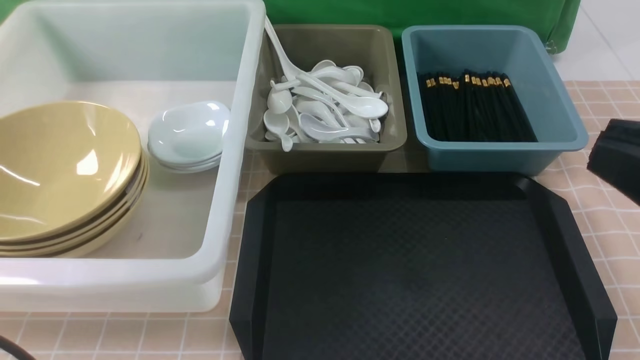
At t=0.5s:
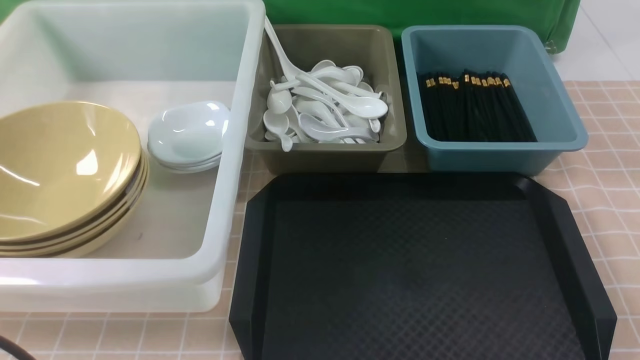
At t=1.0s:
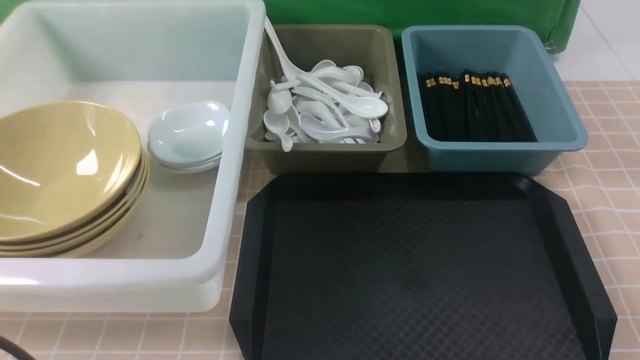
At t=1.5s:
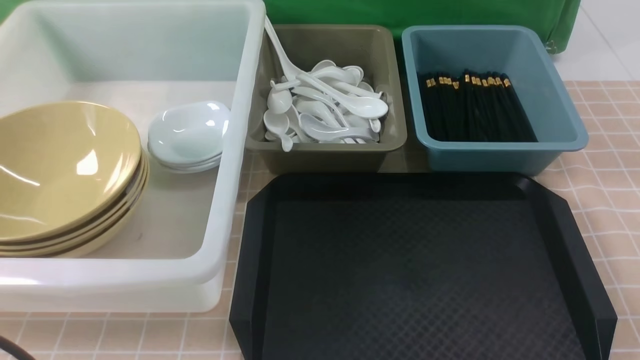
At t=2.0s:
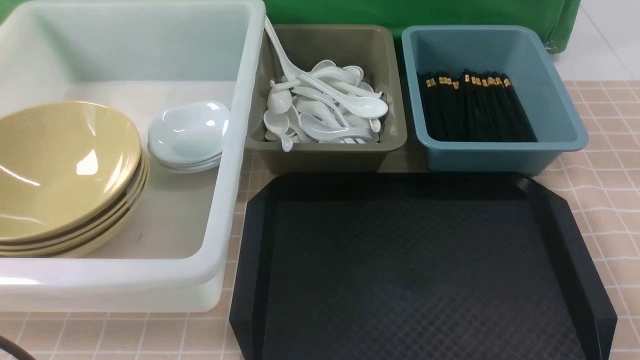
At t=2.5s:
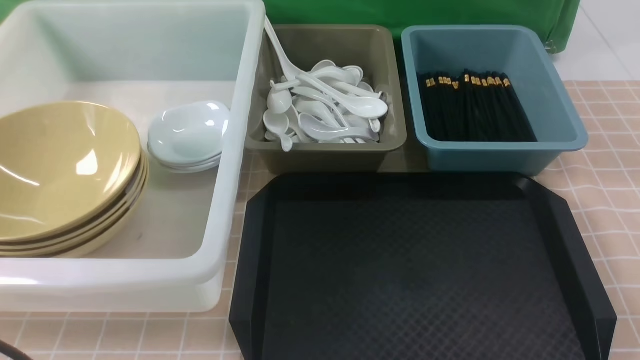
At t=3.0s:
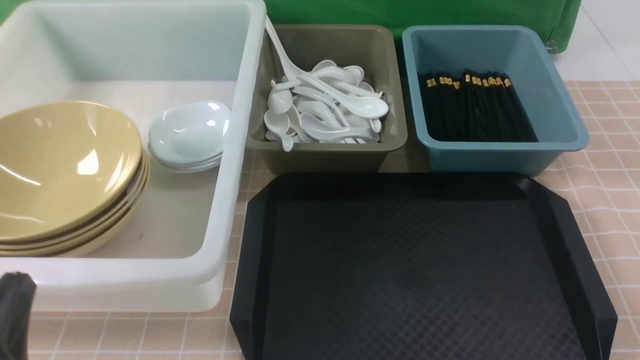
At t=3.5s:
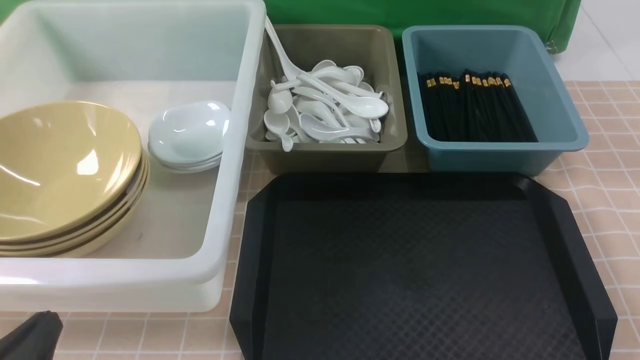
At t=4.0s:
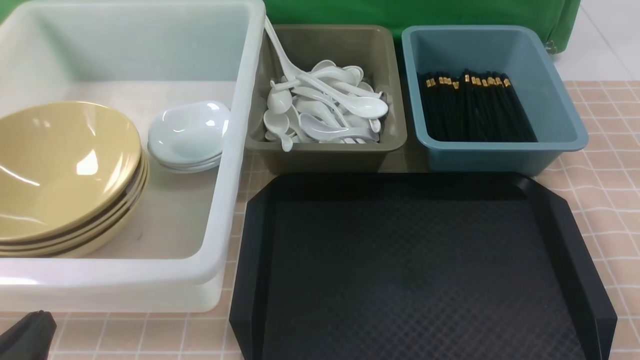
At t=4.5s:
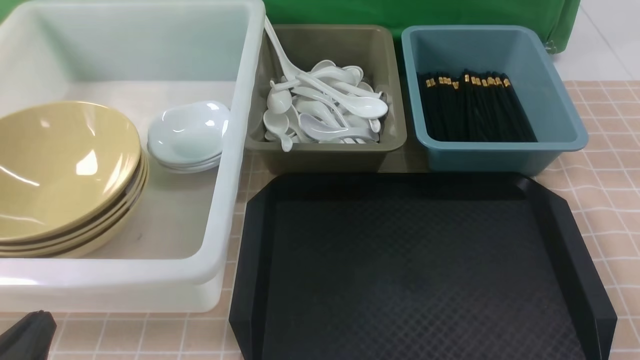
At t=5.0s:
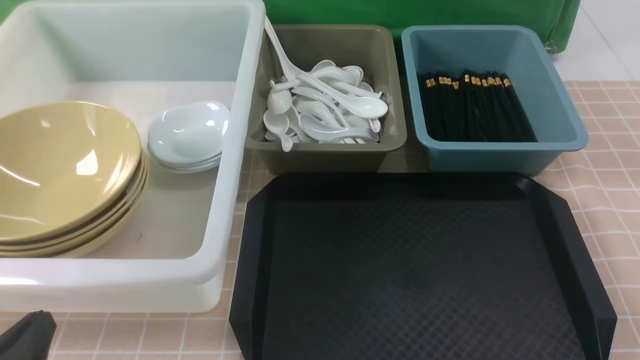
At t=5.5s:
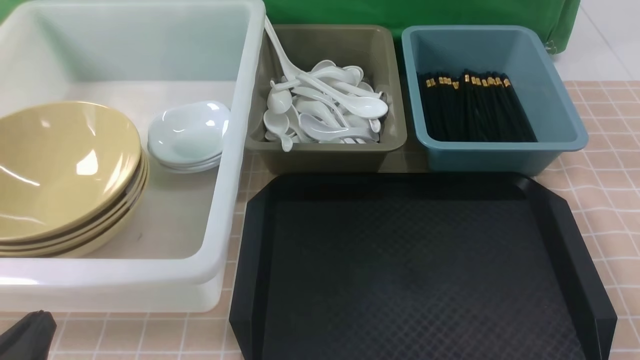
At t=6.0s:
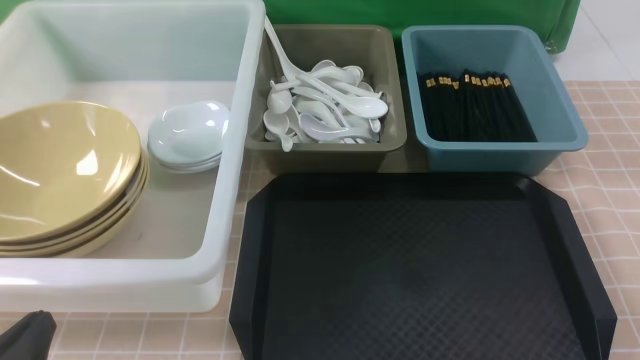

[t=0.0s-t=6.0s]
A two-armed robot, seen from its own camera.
Task of the whole recording: on brown table put chopsticks spoon bowls plates into blue grey white boxes.
t=0.0s to t=2.0s: The right gripper is displaced downward and to the right by about 20 cm.
t=2.0s to t=4.0s: The left gripper heads downward, covering approximately 15 cm.
t=4.0s to t=6.0s: Both grippers stay put.

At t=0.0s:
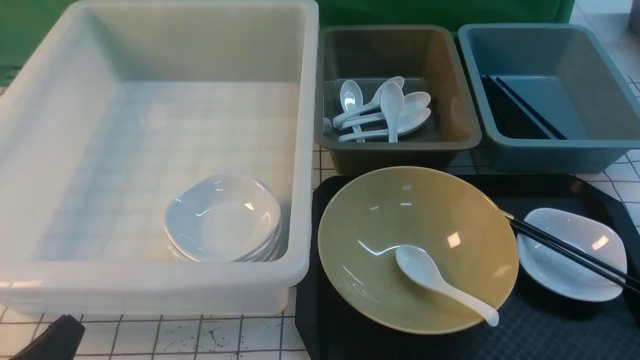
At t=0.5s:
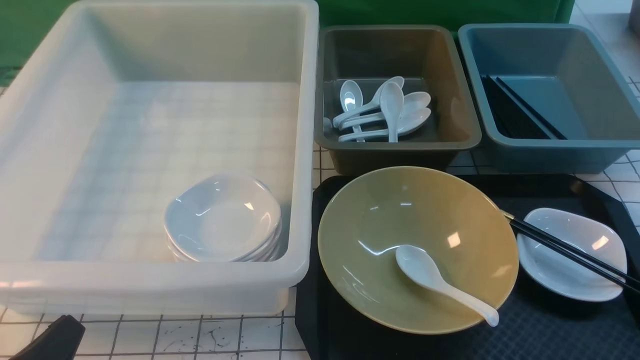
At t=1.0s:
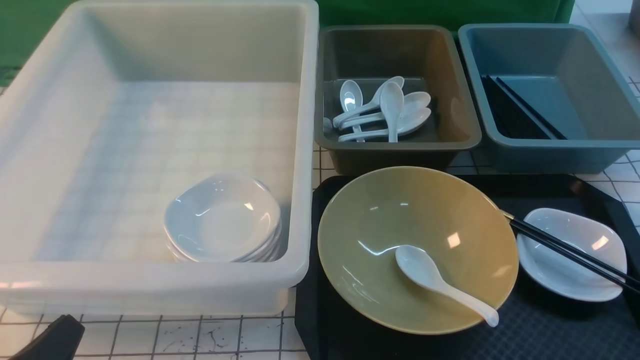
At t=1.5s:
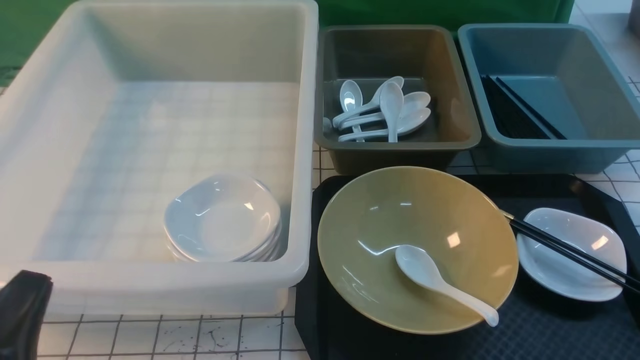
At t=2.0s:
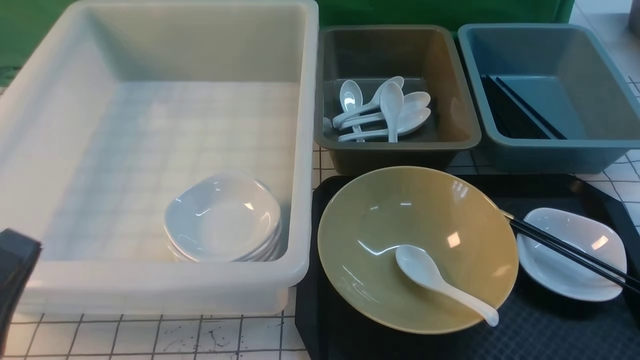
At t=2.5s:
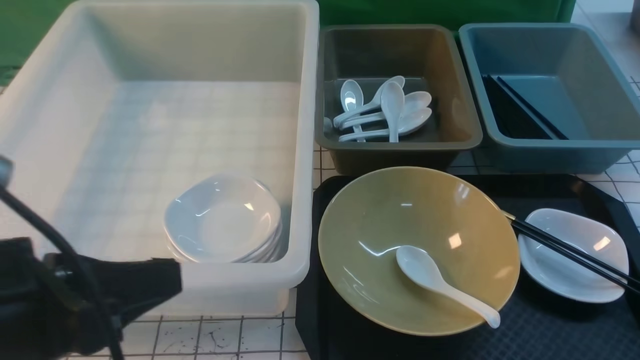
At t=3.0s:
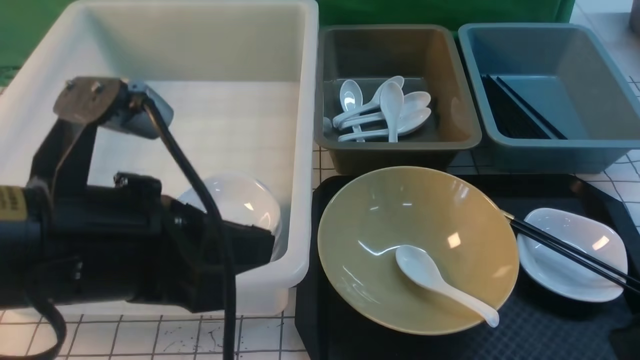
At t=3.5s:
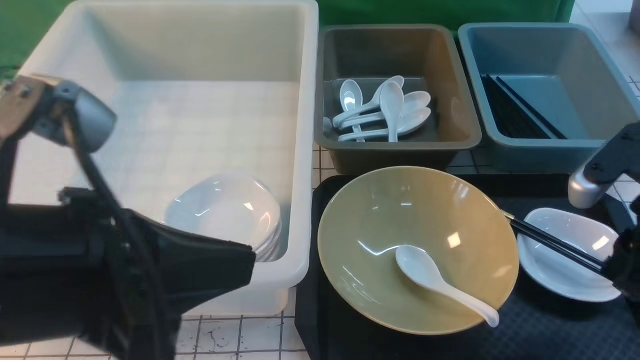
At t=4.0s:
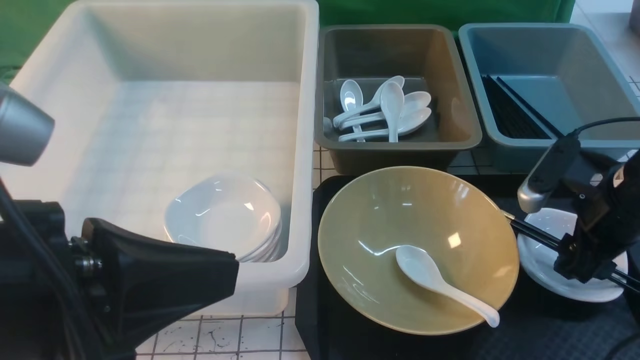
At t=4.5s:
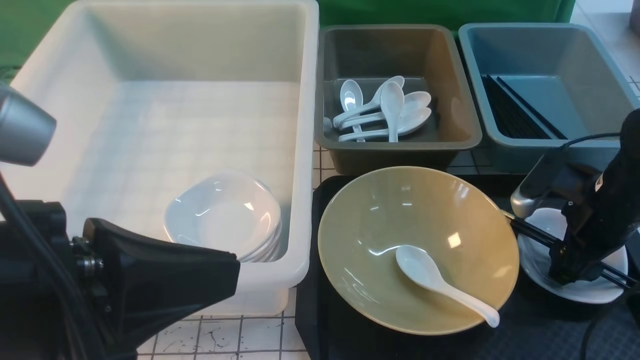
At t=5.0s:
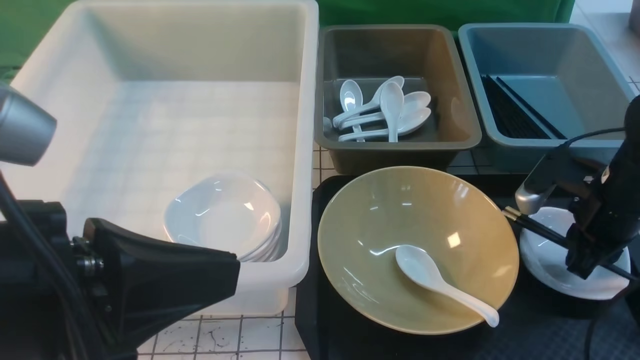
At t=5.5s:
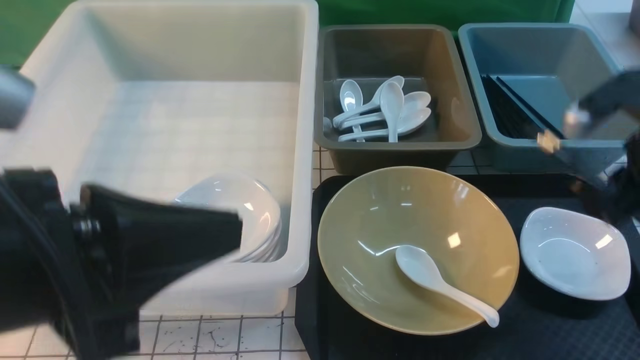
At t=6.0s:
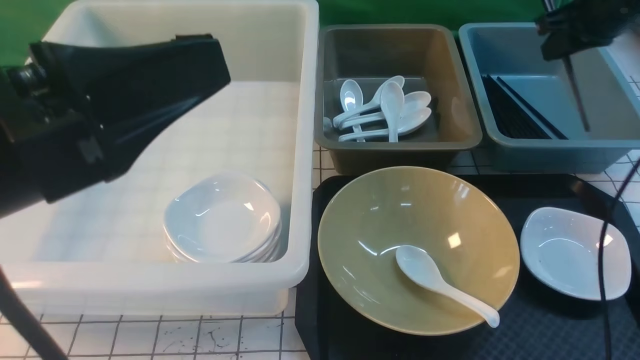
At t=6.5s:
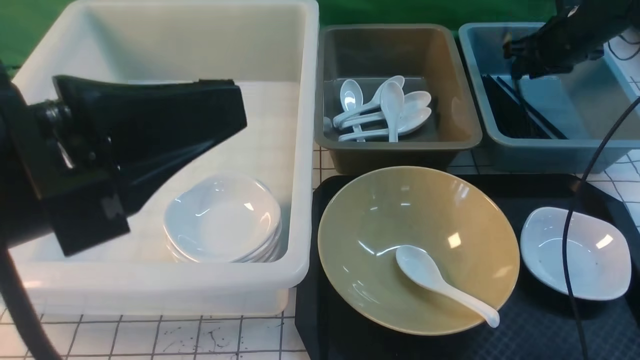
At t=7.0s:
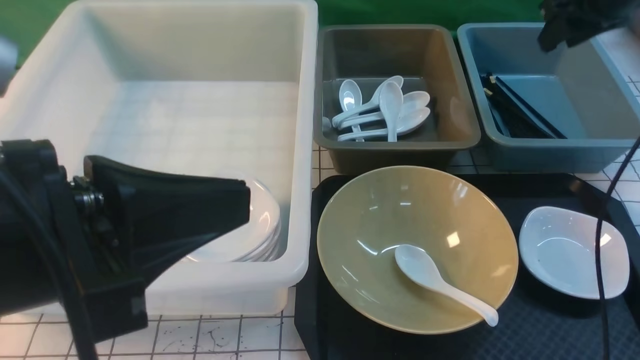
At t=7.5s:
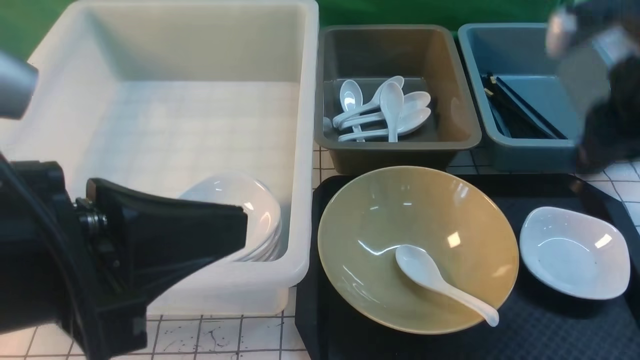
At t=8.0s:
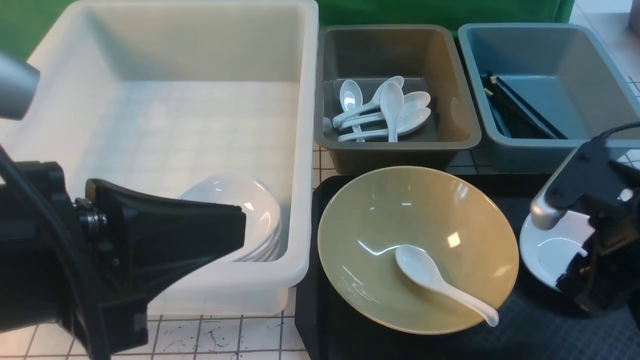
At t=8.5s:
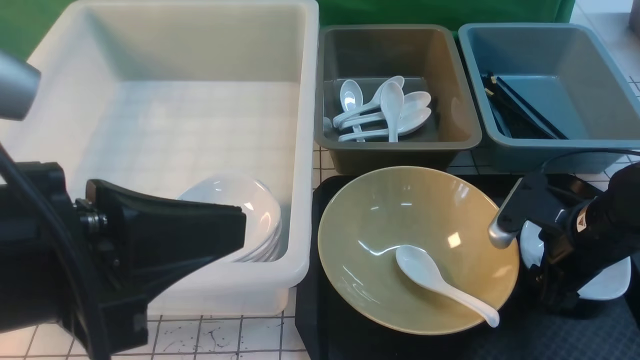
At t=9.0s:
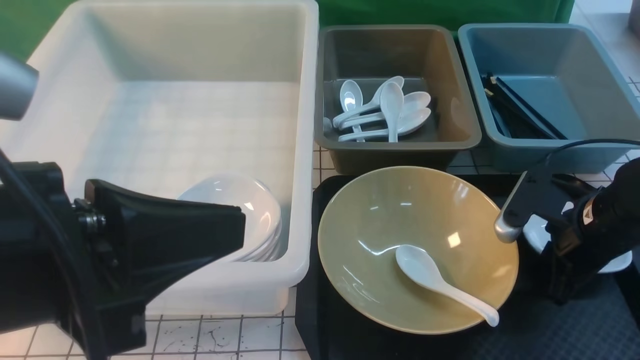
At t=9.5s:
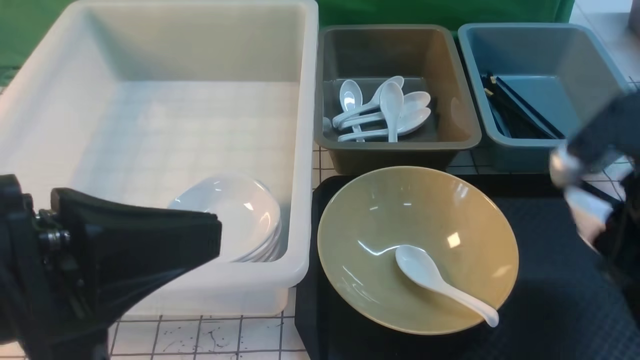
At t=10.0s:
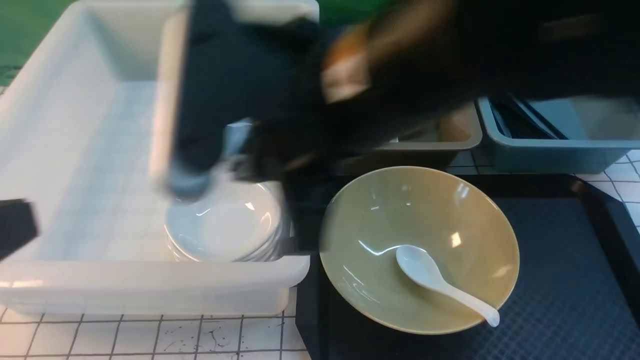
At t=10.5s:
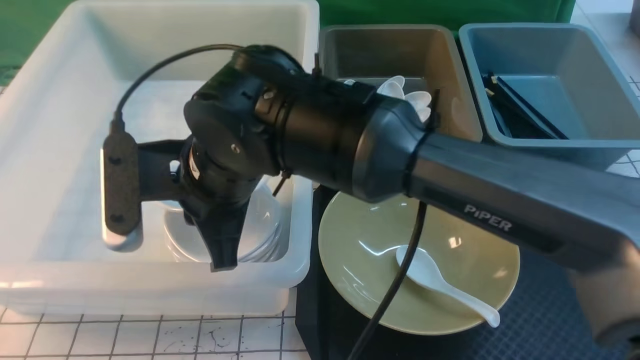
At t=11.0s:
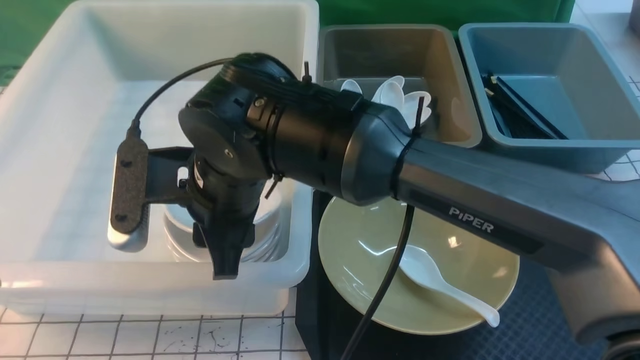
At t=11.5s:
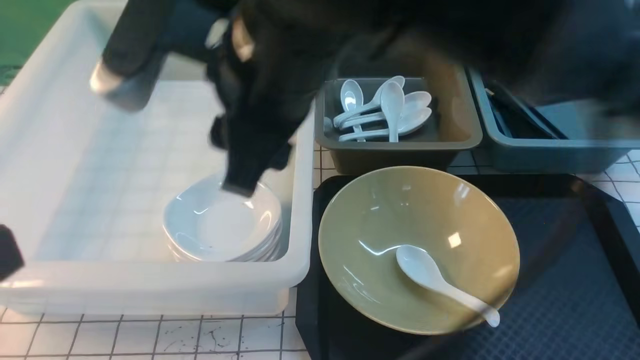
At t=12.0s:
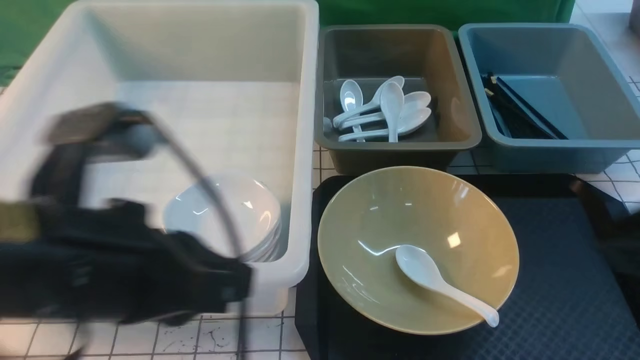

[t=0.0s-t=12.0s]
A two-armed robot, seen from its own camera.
Task of the whole recording: on white black table put chopsticks spoon bowls plates into blue grey white boxes.
Step, t=0.0s to t=5.0s: use the right arm to grab the chopsticks.
Step, t=5.5s to t=7.0s: use the right arm to put the chopsticks into the small storage box on the right.
Step, t=7.5s to t=9.0s: use the right arm to grab the plate.
Step, t=9.5s to t=11.0s: use the right arm to put the plate into the large storage box on the left.
t=0.0s to t=2.0s: The left gripper travels upward by some 10 cm.
t=2.0s to t=4.0s: The right gripper is displaced forward by roughly 25 cm, and opens up; the left gripper travels upward and to the right by some 10 cm.
t=4.0s to t=6.0s: The right gripper moves forward and upward, some 20 cm, and closes.
t=6.0s to t=8.0s: The right gripper shifts roughly 25 cm backward, and opens.
t=8.0s to t=10.0s: The left gripper heads to the left, covering approximately 5 cm. The right gripper goes some 30 cm to the left and upward, and closes its fingers.
t=10.0s to t=12.0s: The left gripper moves to the right and forward, approximately 10 cm. Meanwhile the right gripper heads to the right and backward, covering about 25 cm, and opens and closes again.

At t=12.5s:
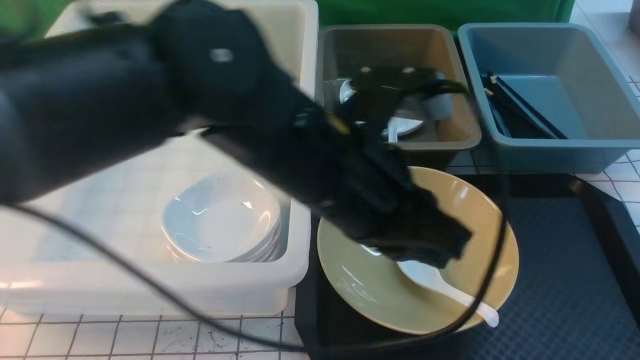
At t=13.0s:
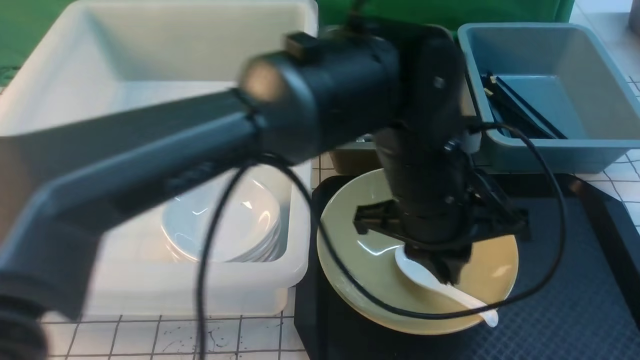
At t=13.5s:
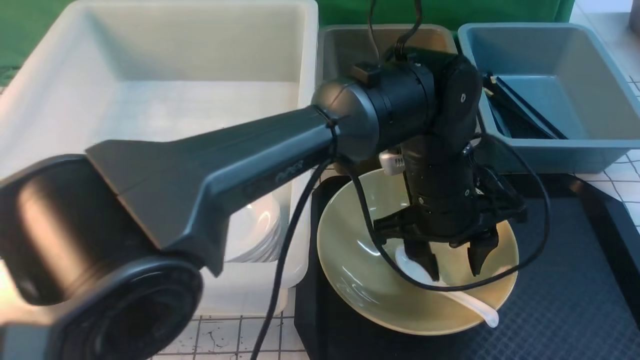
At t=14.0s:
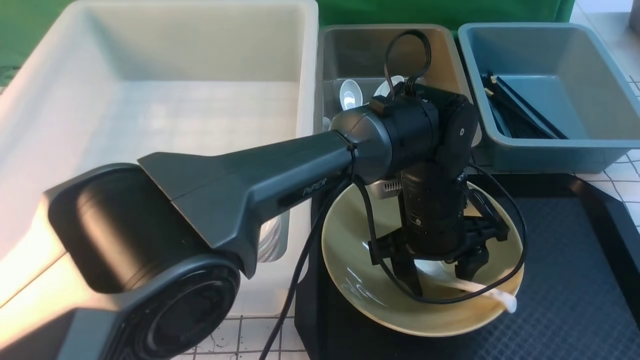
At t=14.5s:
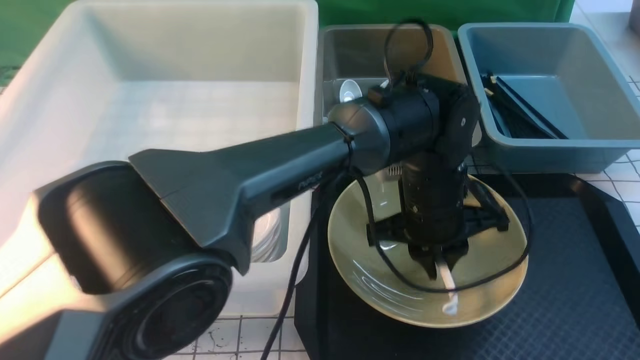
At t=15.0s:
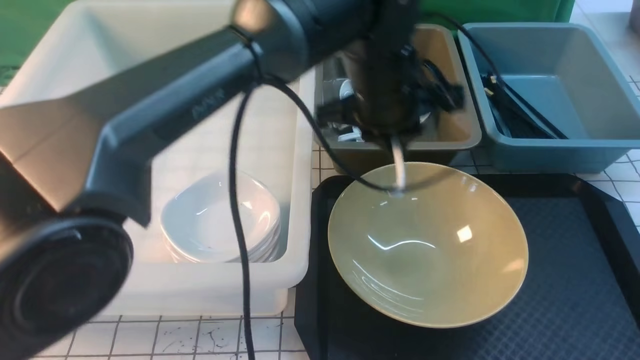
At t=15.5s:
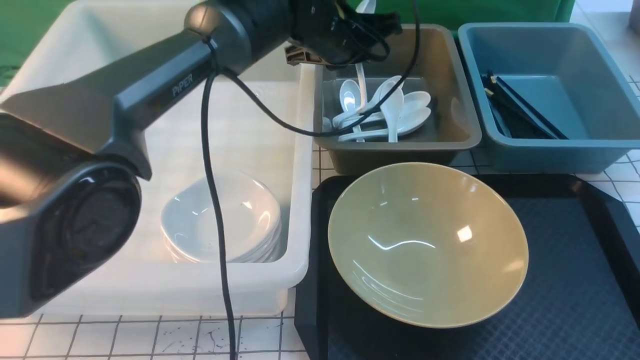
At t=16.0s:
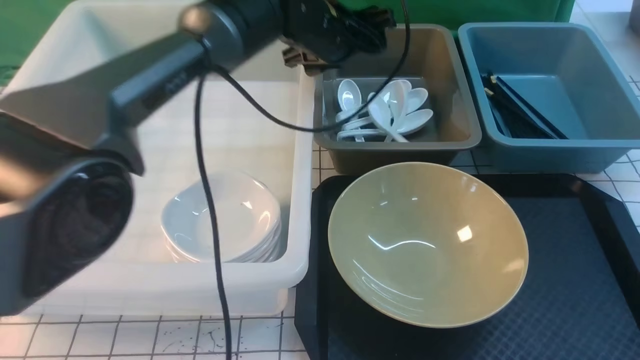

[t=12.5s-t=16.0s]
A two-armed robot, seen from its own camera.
Task of the whole recording: on white black table put chopsticks spoon bowls plates into blue grey white boxes.
Step, t=12.5s to t=14.5s: use the left arm to grab the soup spoon in the middle.
Step, t=15.0s to t=16.0s: use the left arm to put the soup spoon into the small storage box in the middle.
t=12.5s to t=14.5s: The left gripper moves downward, to the right and forward, about 20 cm, and opens and closes again.
t=14.5s to t=16.0s: The left gripper goes roughly 20 cm forward, to the left and upward, and opens up.
